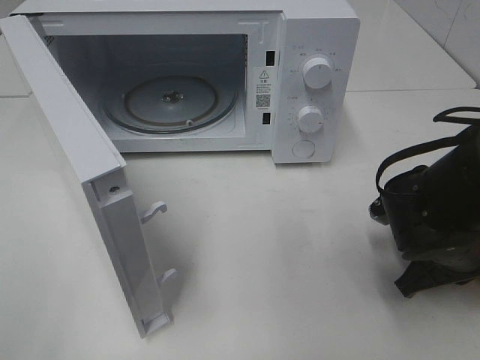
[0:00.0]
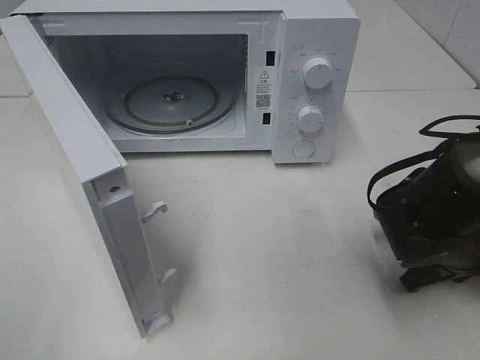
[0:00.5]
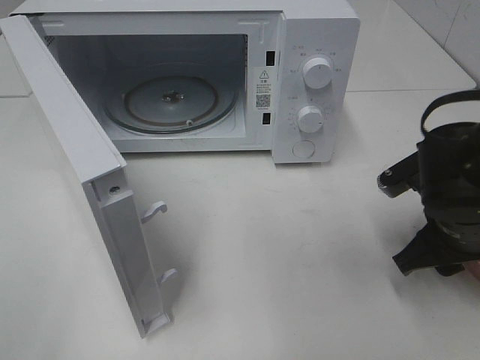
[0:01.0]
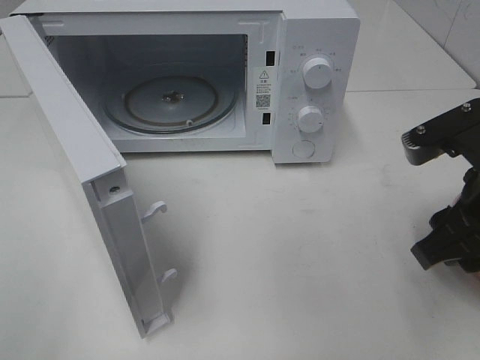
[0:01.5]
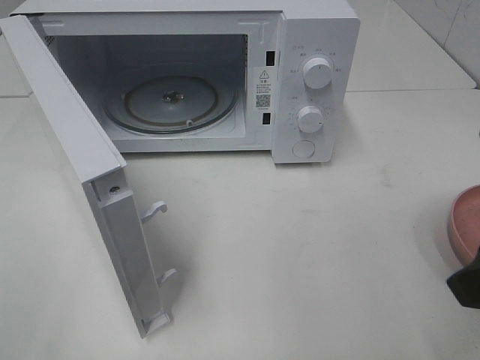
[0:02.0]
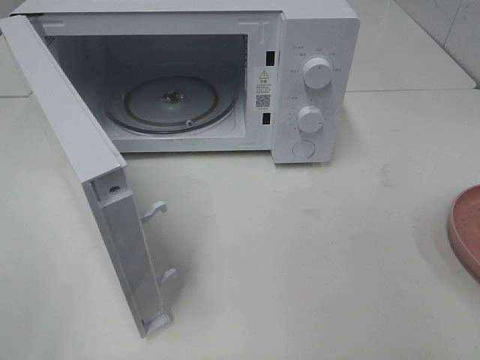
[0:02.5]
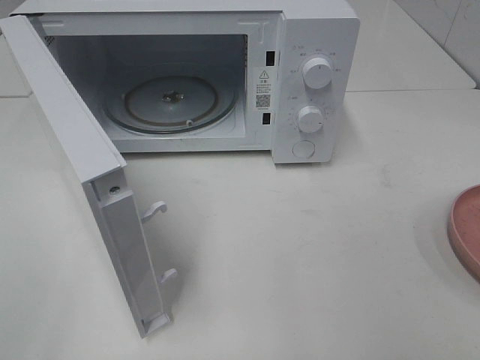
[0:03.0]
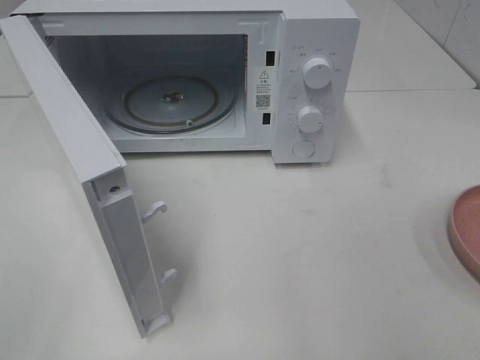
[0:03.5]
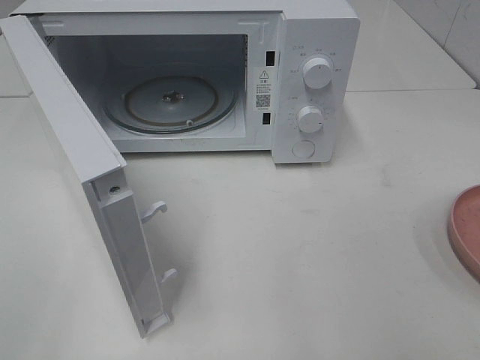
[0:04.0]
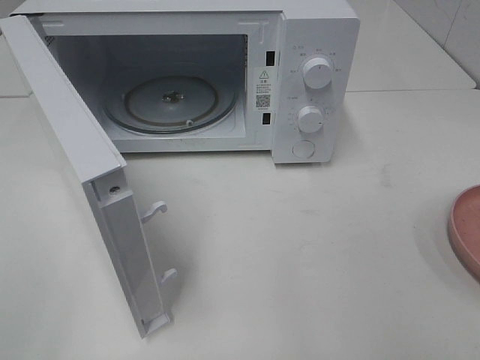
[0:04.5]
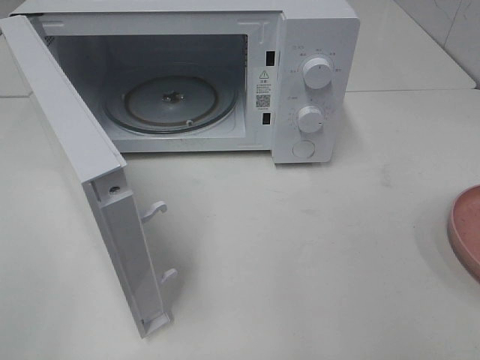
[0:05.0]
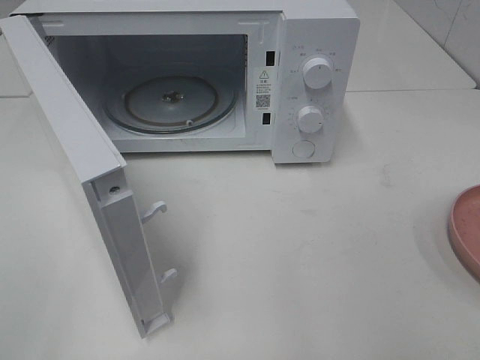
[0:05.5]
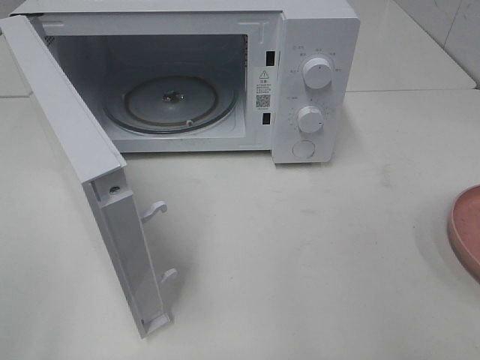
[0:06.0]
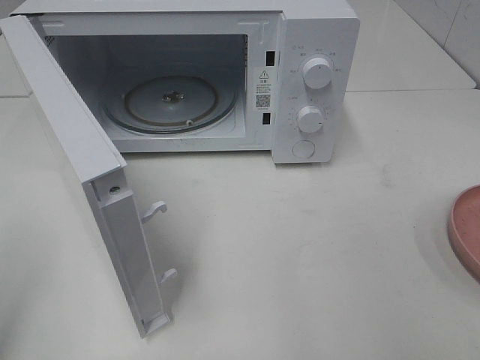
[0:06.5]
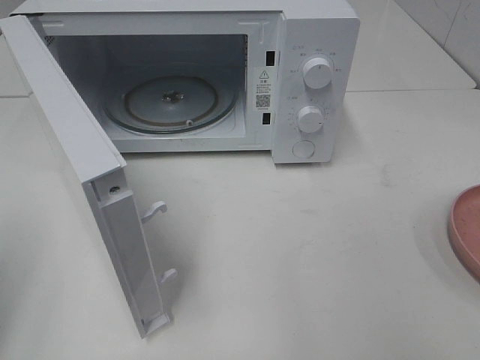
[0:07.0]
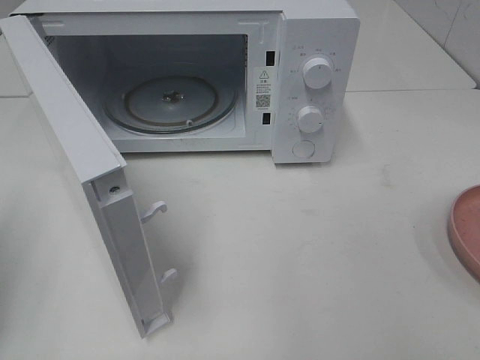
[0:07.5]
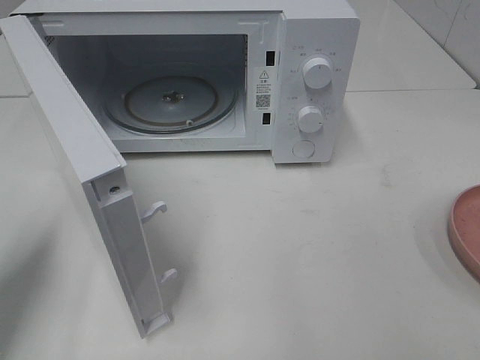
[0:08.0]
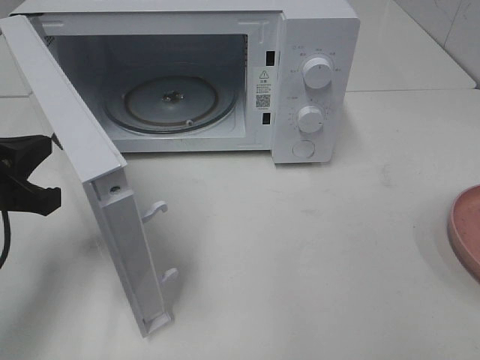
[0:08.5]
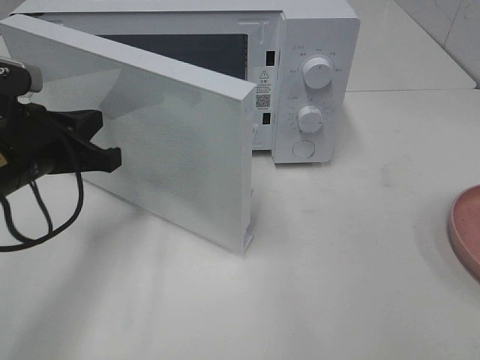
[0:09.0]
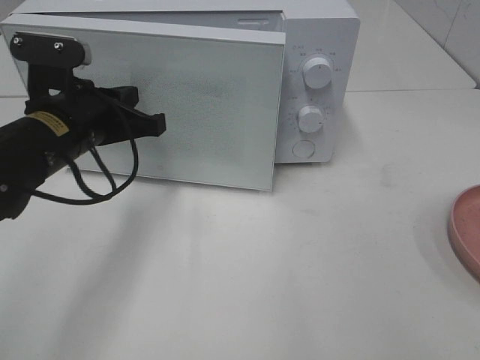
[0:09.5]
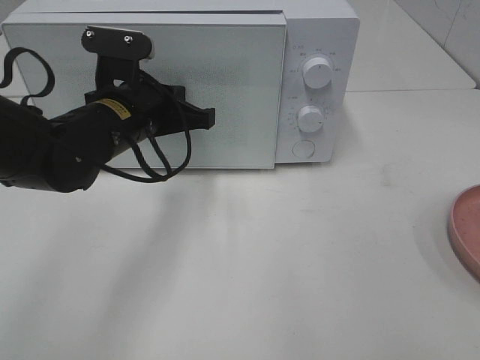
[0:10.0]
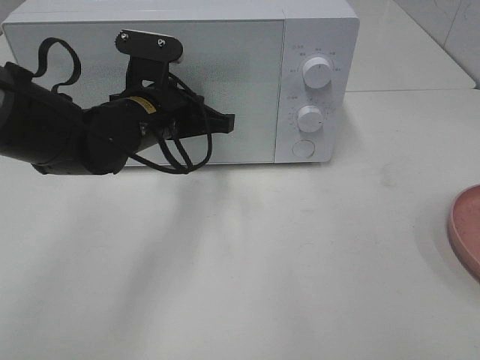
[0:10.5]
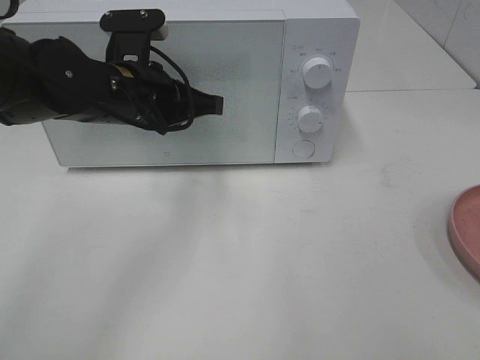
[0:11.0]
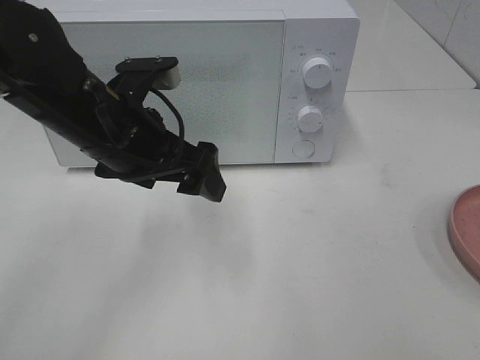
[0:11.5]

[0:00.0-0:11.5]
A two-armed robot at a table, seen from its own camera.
Task of the whole recording: Heat the burger.
Step, 0:01.5 to 0:11.0: Left hand: close the microwave door.
0:00.0 to 0:02.0: The right gripper moves upward and backward, roughly 20 cm, and opens.
0:02.0 to 0:04.0: The right gripper is displaced backward and to the right by about 15 cm.
0:07.5 to 0:09.5: The left gripper is displaced to the right and forward by approximately 25 cm.
0:09.5 to 0:11.5: The left gripper moves some 5 cm, and opens its fingers.

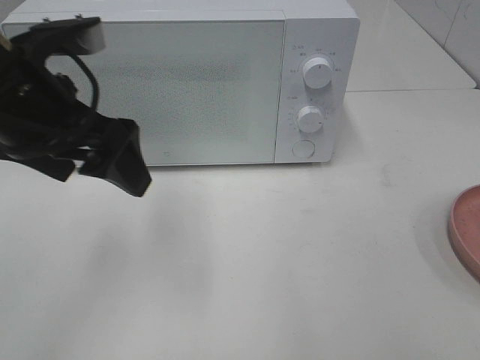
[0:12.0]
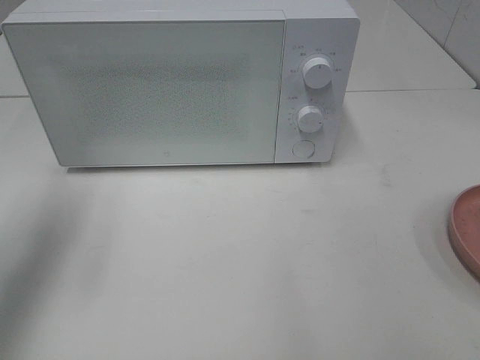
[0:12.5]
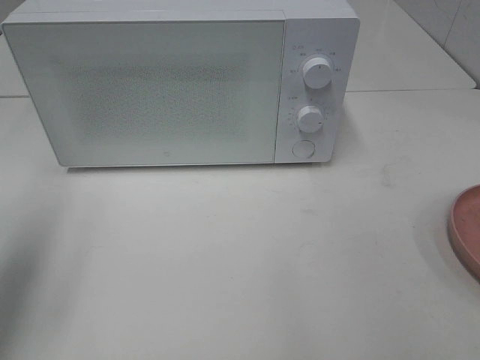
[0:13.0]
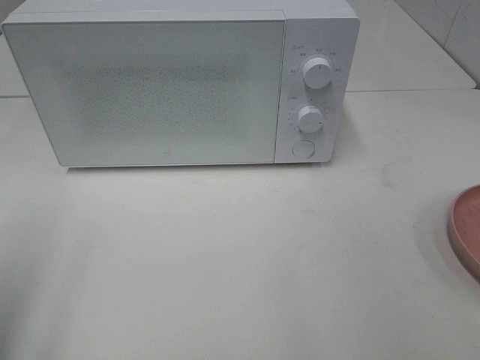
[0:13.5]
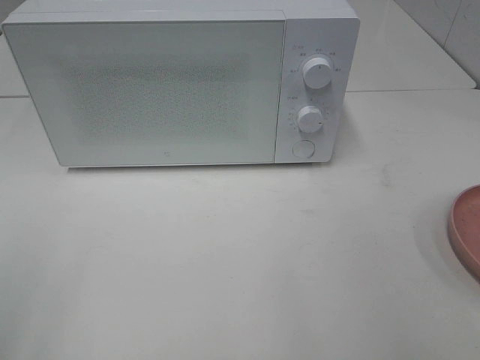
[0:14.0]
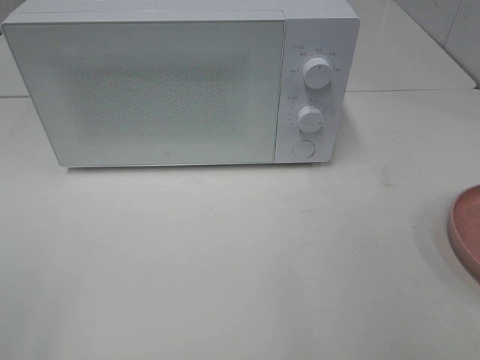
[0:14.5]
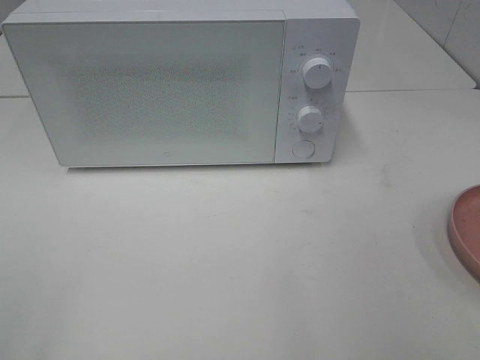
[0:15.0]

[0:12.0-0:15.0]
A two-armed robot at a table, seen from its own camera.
Task of the whole recording: Heat the burger.
0:12.0 to 0:13.5: The left gripper goes approximately 20 cm backward and to the left.

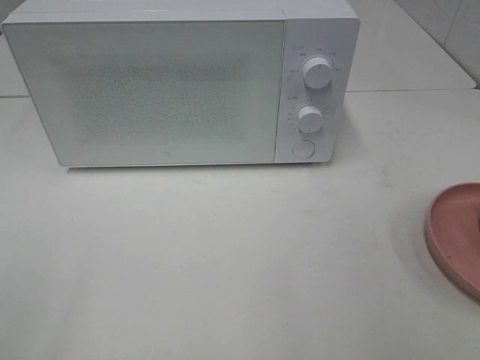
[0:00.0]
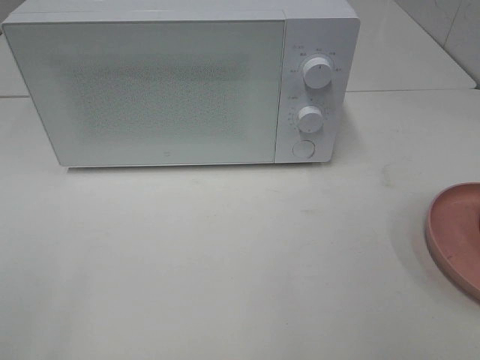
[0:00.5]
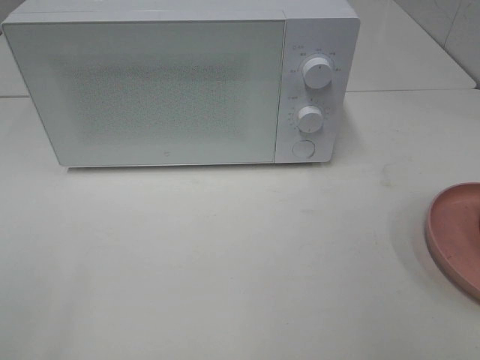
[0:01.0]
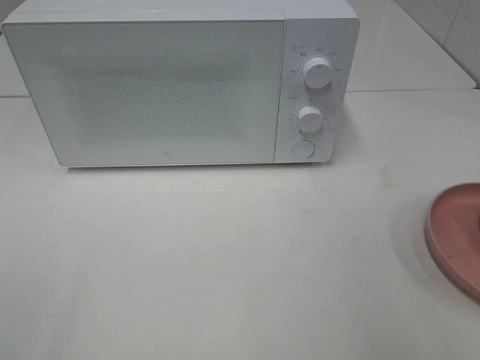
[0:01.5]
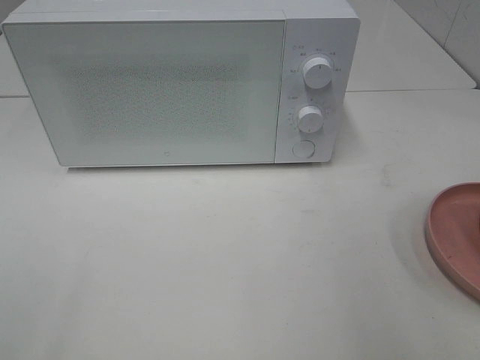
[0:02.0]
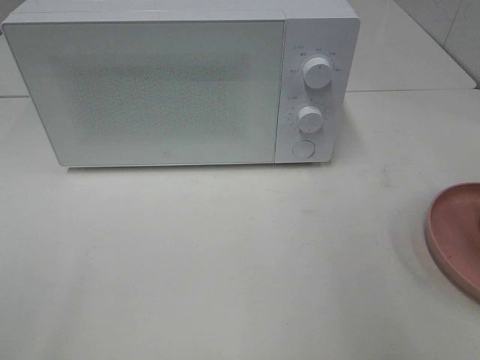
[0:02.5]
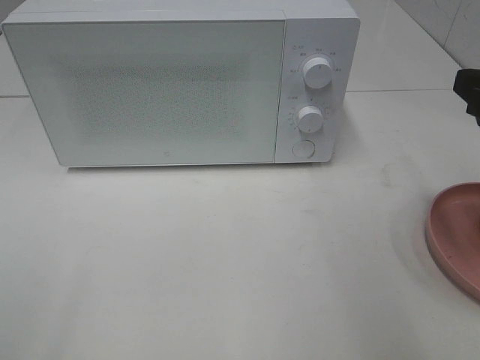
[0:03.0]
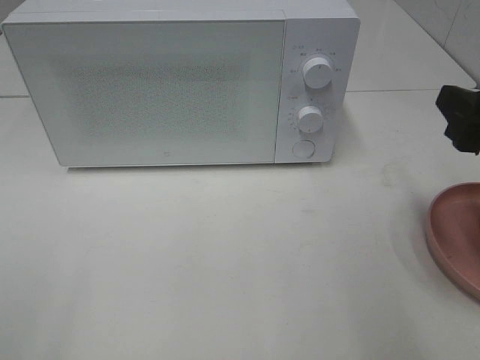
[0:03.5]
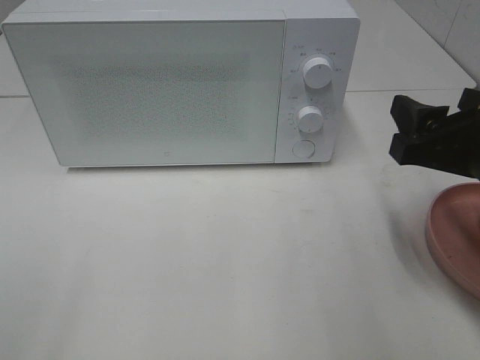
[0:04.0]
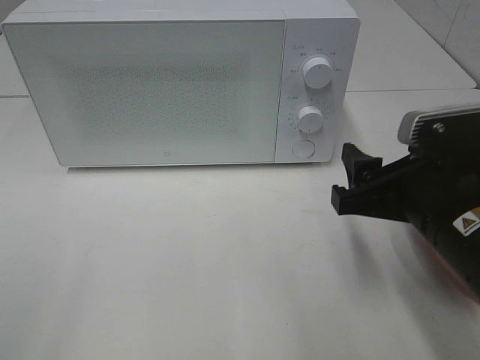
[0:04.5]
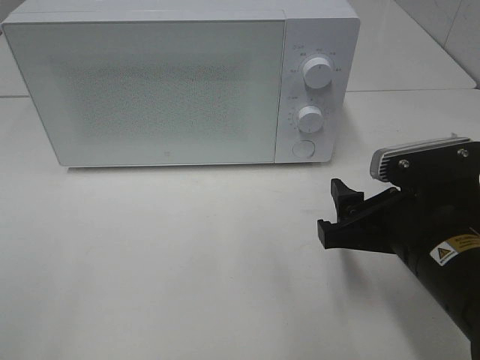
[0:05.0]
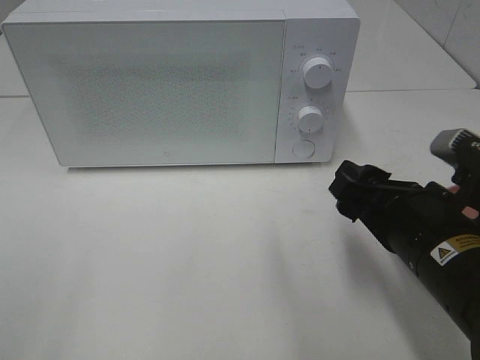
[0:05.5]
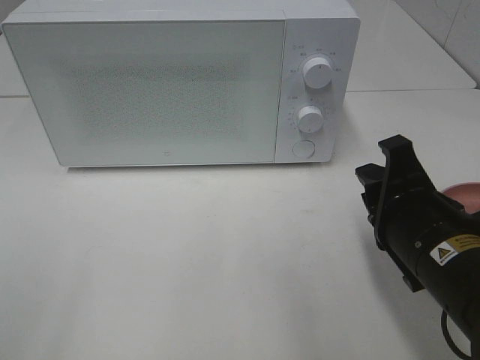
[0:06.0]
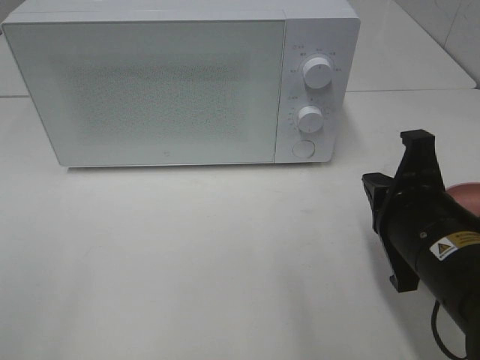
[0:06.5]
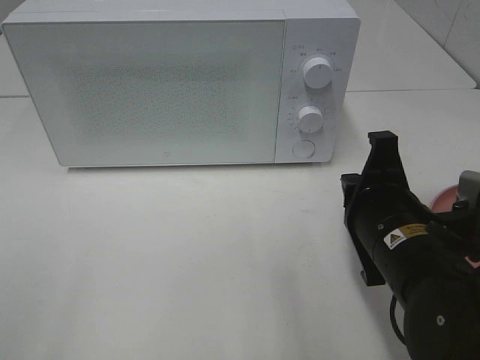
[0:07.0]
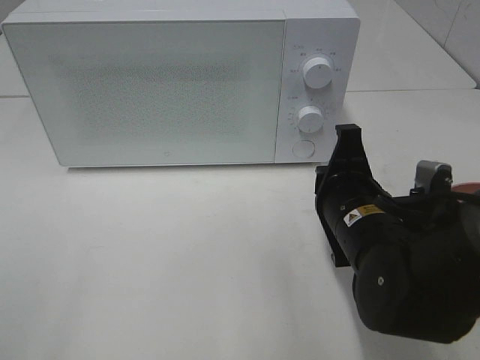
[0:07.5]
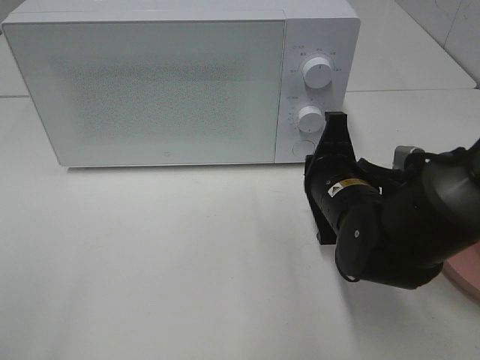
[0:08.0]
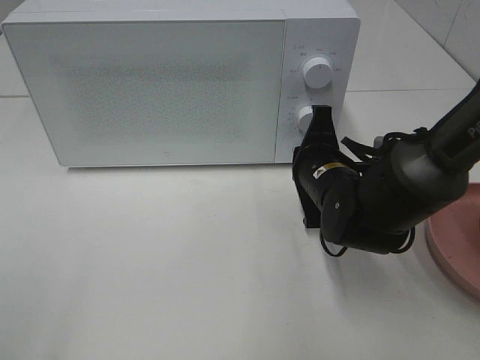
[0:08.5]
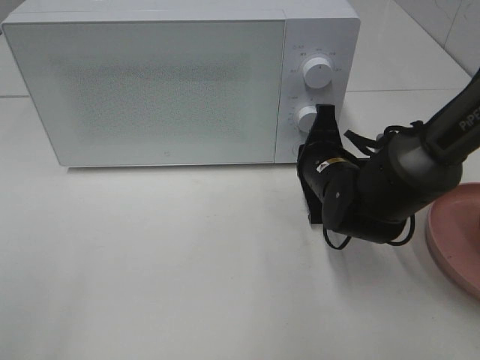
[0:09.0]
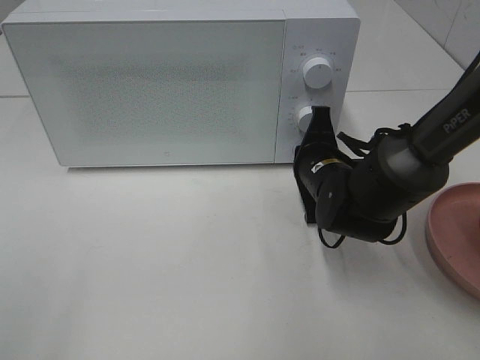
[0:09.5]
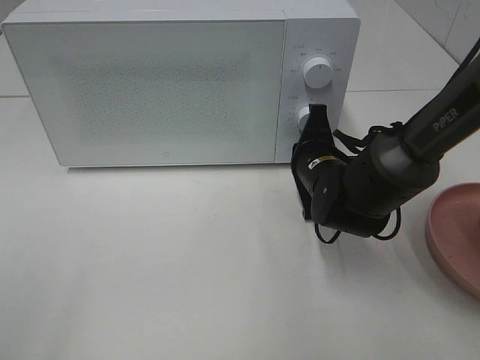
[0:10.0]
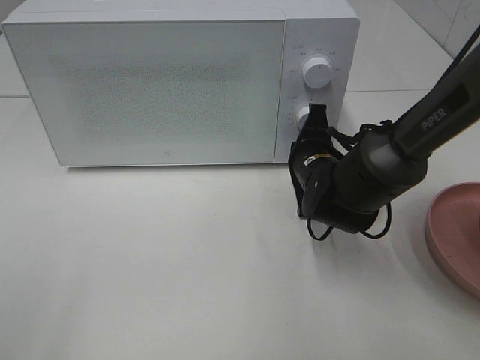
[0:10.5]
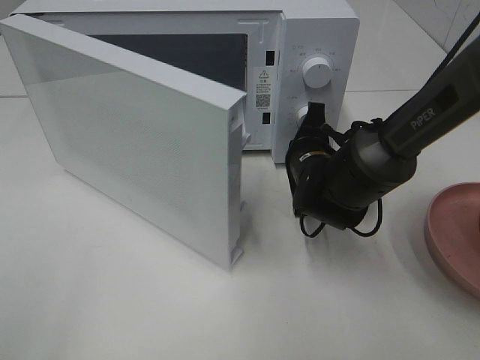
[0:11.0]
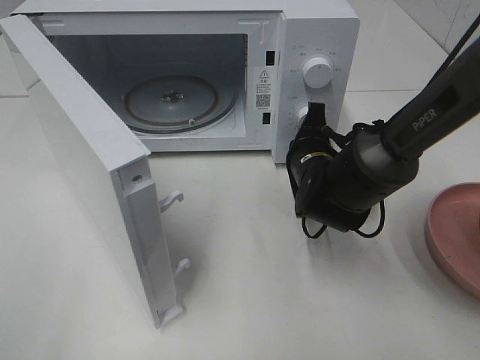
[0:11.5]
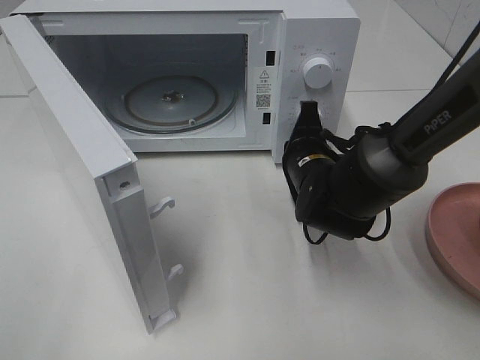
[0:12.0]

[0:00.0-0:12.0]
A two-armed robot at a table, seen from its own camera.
Task of the whole recording: Heat the burger.
0:02.0 to 0:04.0: The right gripper moves downward, forward and to the left, about 15 cm.
0:04.0 to 0:06.0: The right gripper goes some 10 cm downward and to the left, and closes its fingers.
0:06.0 to 0:08.0: The right gripper heads forward, covering approximately 10 cm, and closes up.
0:08.0 to 0:10.0: The right gripper is displaced forward by about 5 cm.
